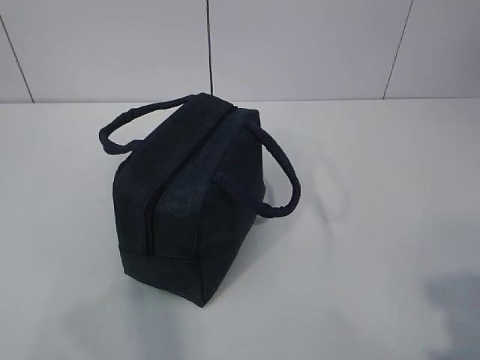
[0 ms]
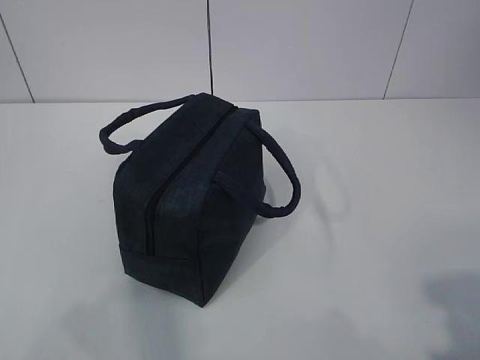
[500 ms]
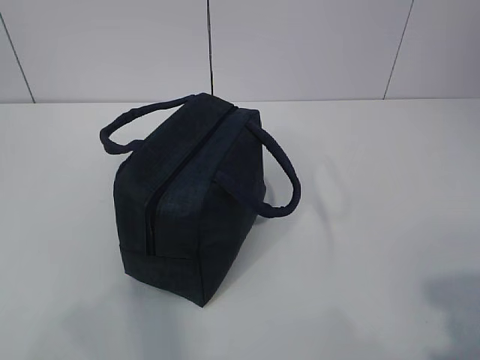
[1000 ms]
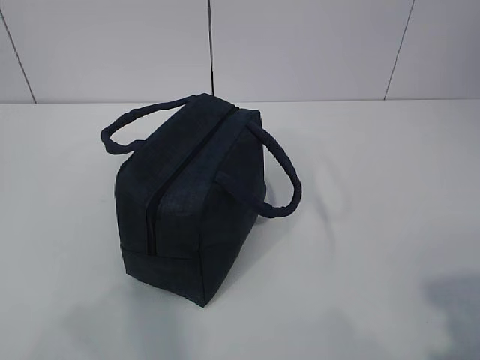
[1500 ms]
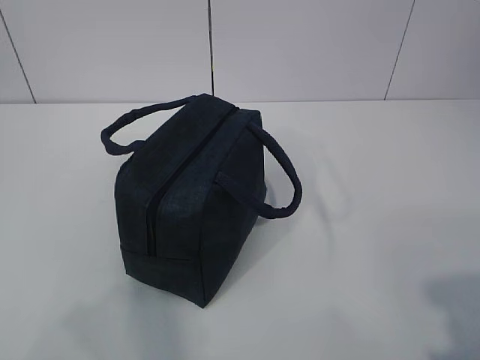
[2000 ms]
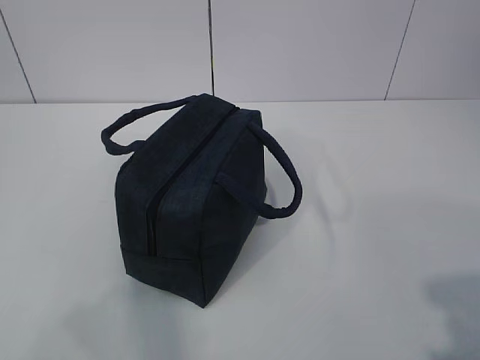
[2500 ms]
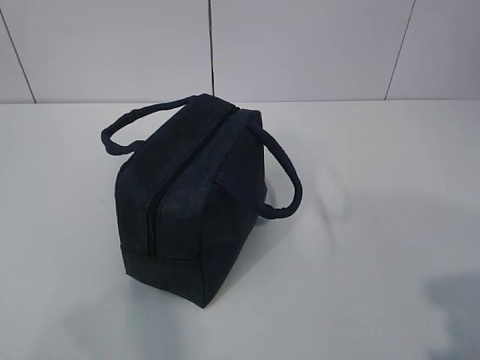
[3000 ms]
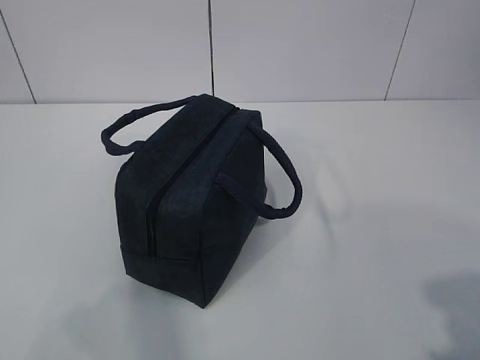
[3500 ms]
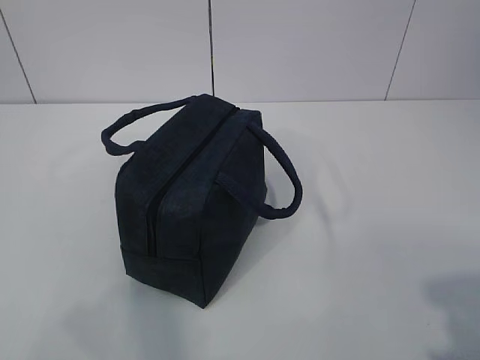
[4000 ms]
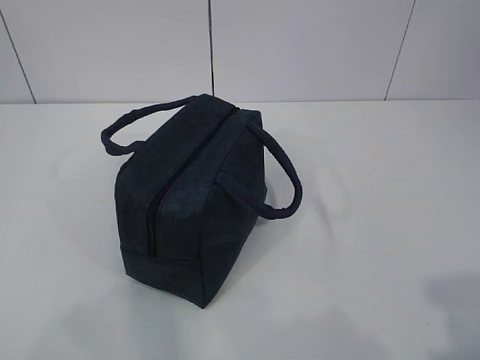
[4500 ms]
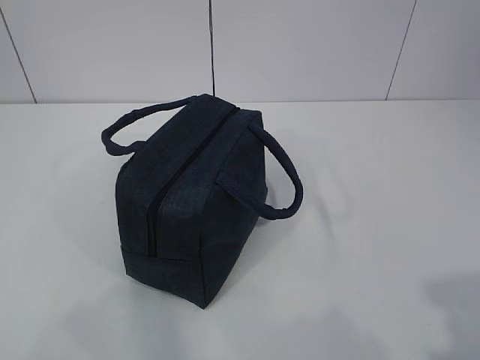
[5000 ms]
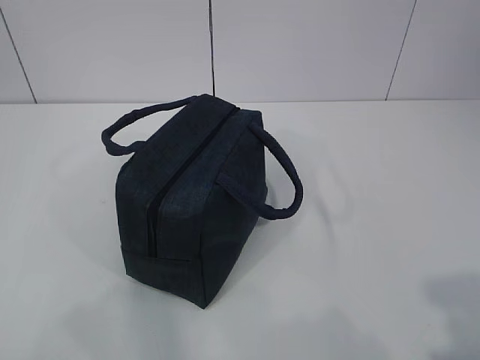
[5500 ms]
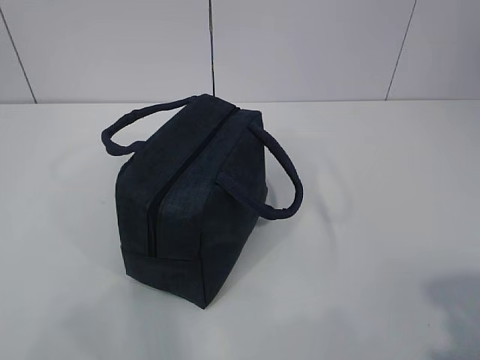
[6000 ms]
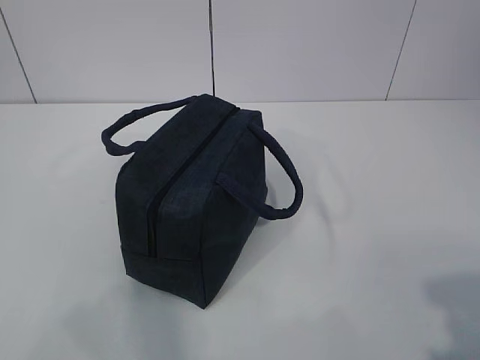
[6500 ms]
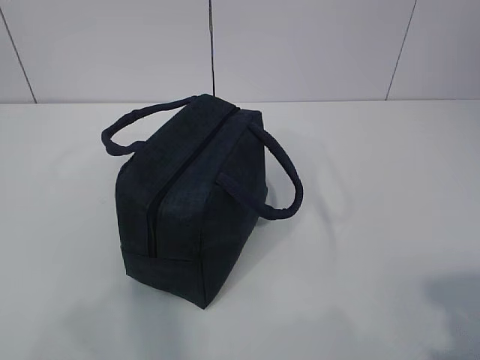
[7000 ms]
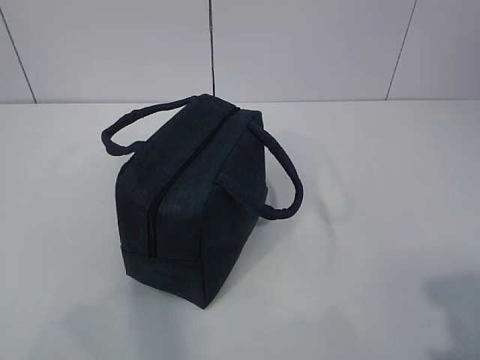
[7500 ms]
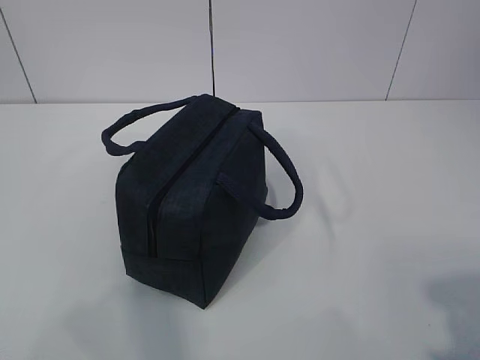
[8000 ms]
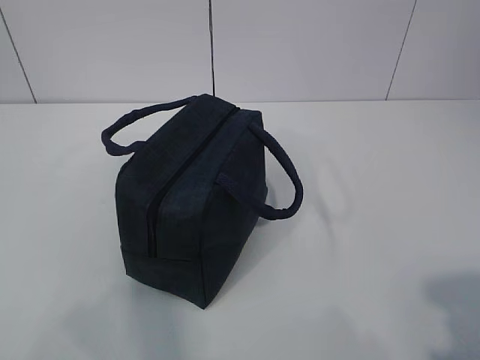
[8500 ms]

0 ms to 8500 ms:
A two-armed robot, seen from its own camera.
0 ms to 8500 ms: Both grippers stay put.
